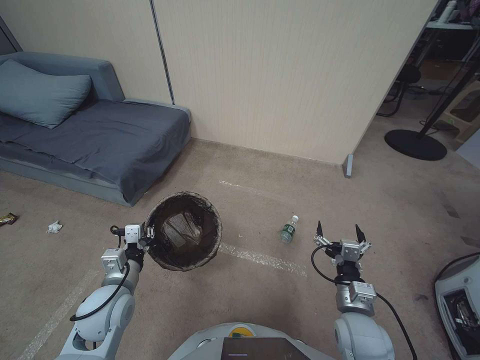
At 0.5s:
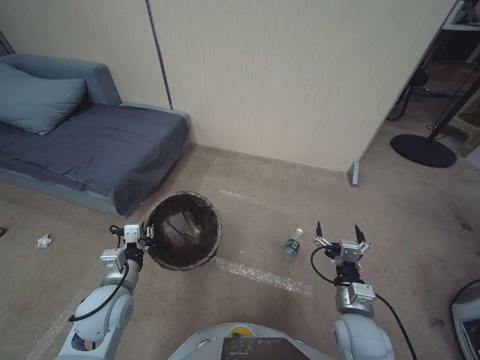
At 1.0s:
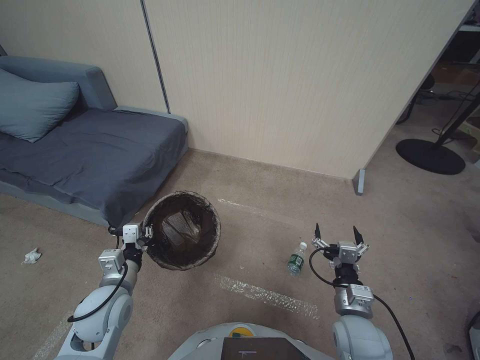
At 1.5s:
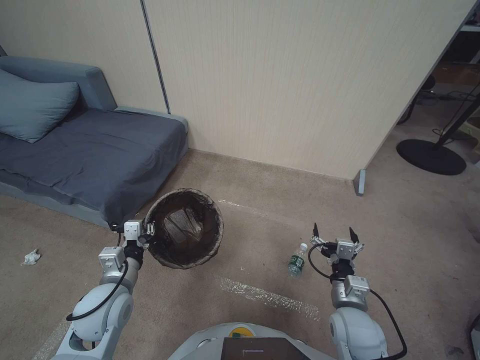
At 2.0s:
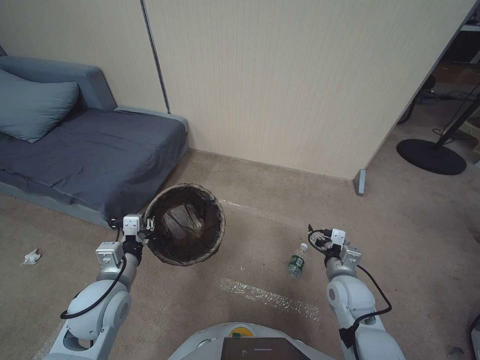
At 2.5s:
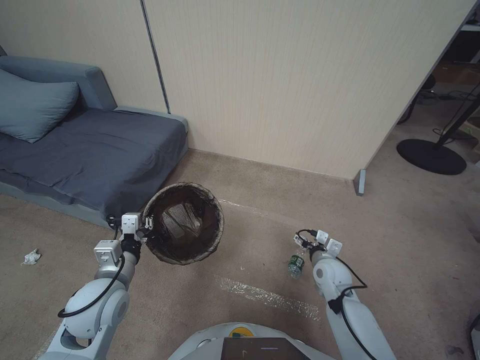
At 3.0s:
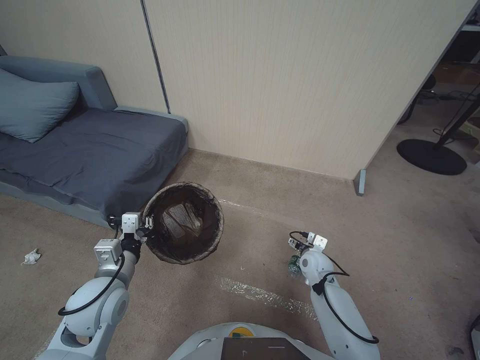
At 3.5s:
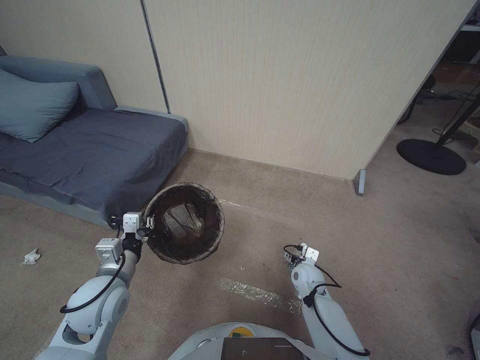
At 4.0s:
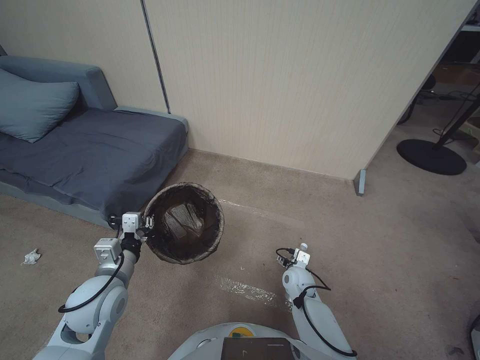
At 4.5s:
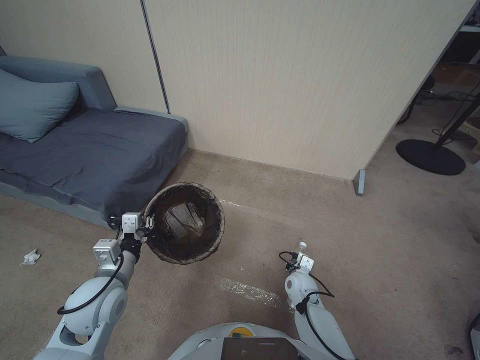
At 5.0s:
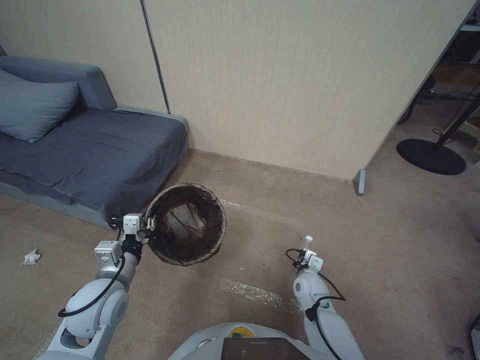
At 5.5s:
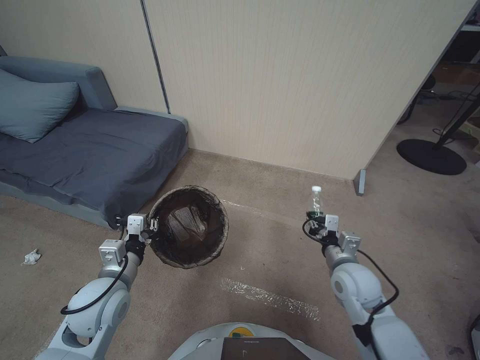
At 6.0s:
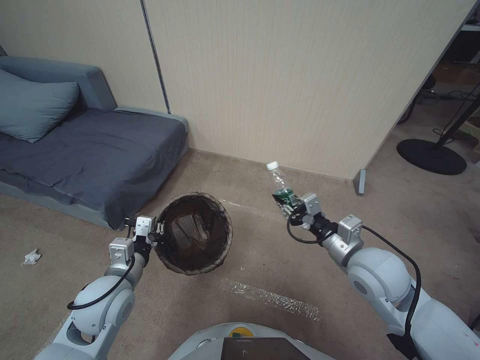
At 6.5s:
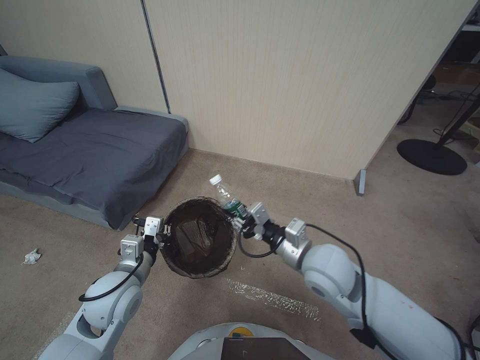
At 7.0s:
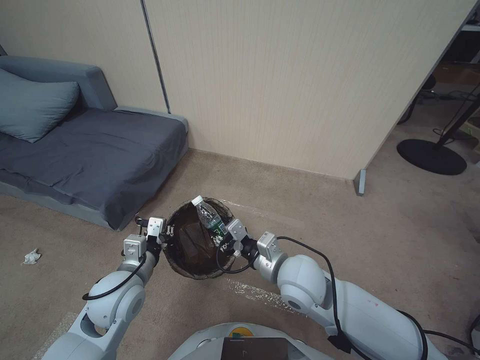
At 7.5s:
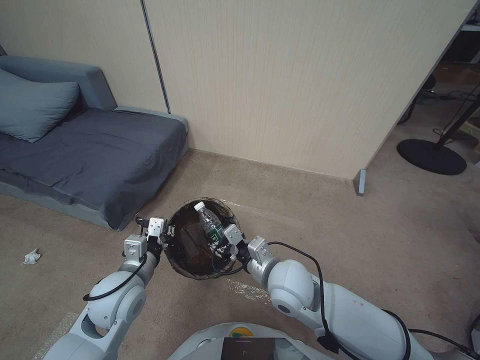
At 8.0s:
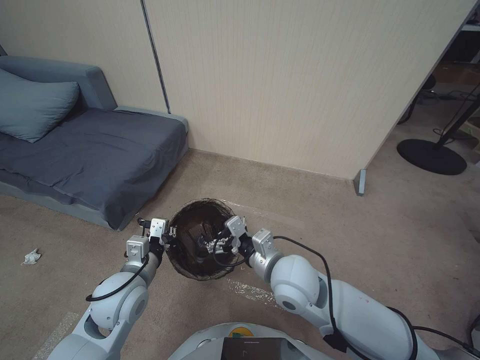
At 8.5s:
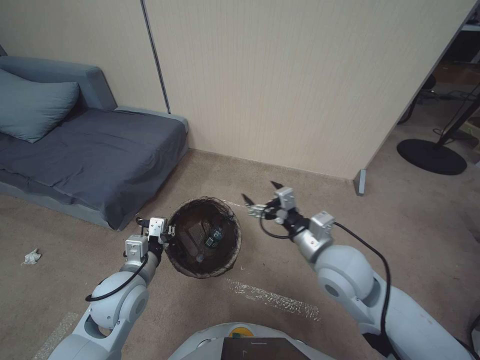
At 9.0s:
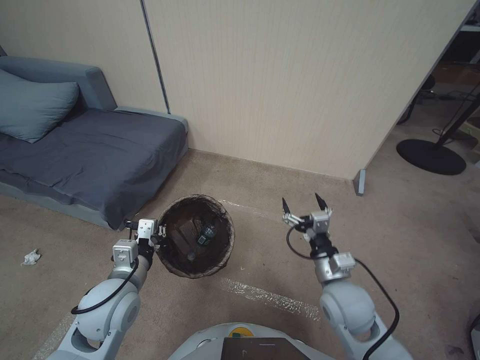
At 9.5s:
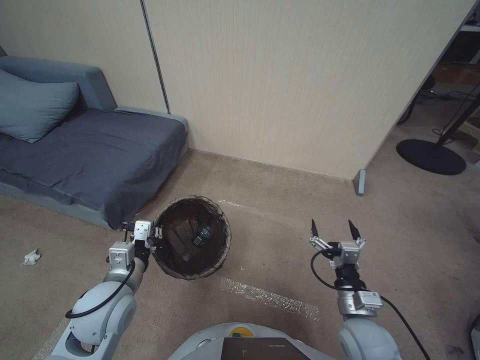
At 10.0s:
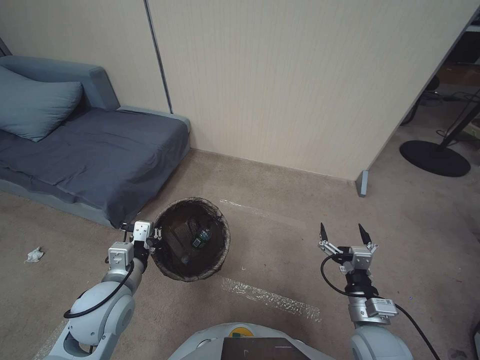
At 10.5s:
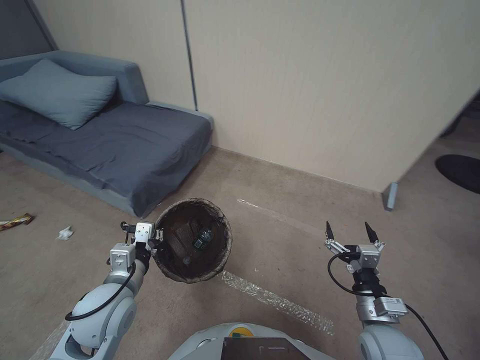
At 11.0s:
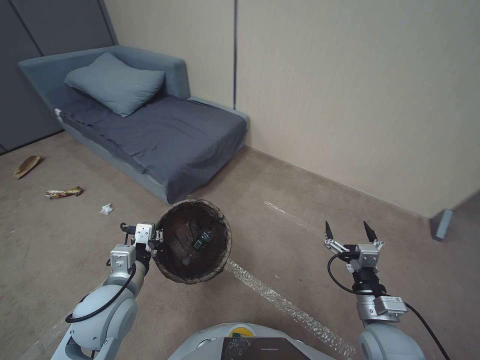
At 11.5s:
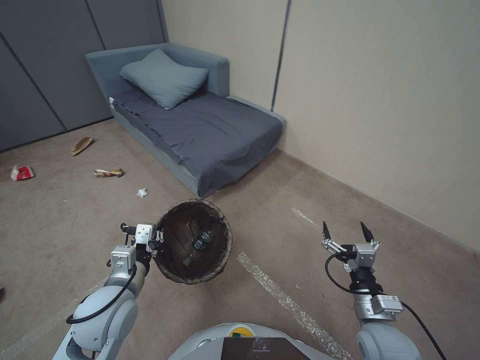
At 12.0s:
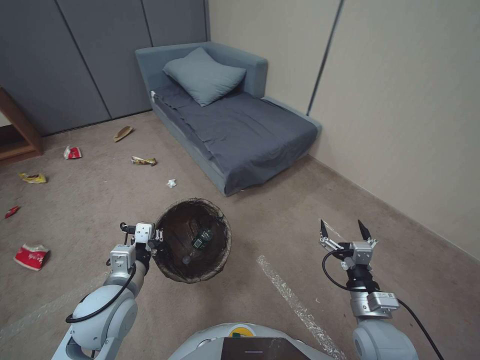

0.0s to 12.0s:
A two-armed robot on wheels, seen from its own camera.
Task of the whole recording: Pick up the trash bin, then pick up the garbage from the floor and place it into the trash bin.
0.0s to 2.0s: The right gripper shifts about 5 cm forward.
2.0s to 4.0s: The right gripper travels downward, forward and to the left by some 15 cm.
4.0s to 6.0s: The right gripper moves upward, some 30 cm, and closes its fingers.
6.0s to 8.0s: The right gripper is displaced to the left by approximately 15 cm, and opens its fingers.
8.0s to 10.0s: The right gripper goes about 25 cm to the right, backward and downward.

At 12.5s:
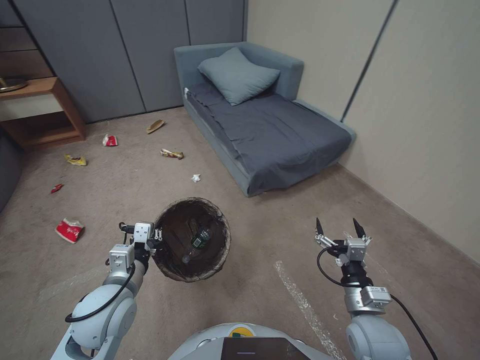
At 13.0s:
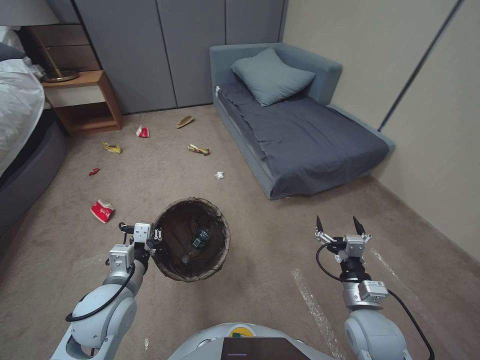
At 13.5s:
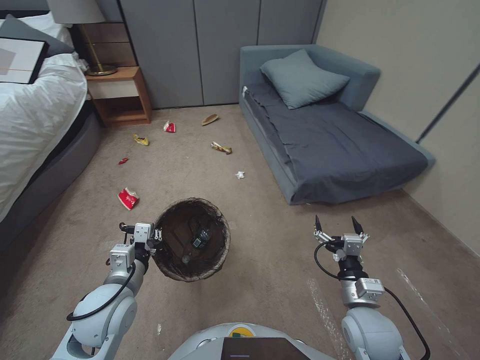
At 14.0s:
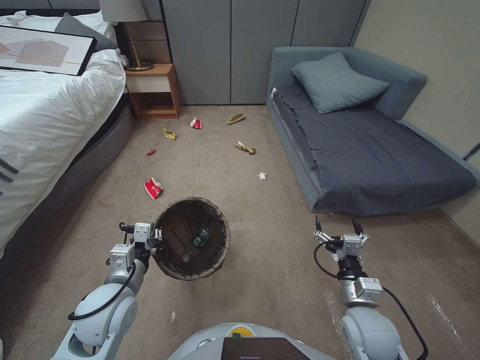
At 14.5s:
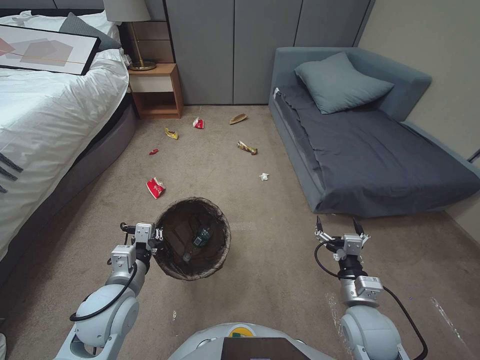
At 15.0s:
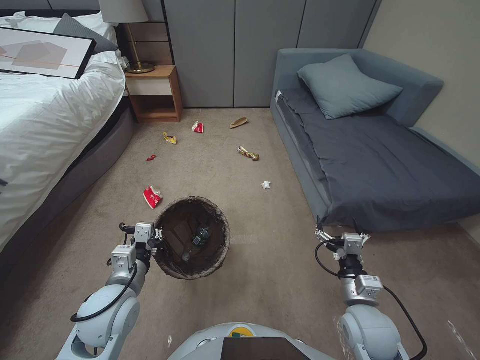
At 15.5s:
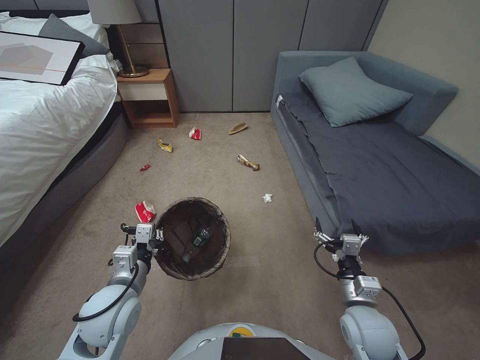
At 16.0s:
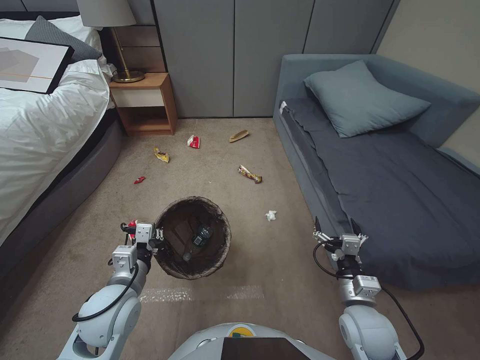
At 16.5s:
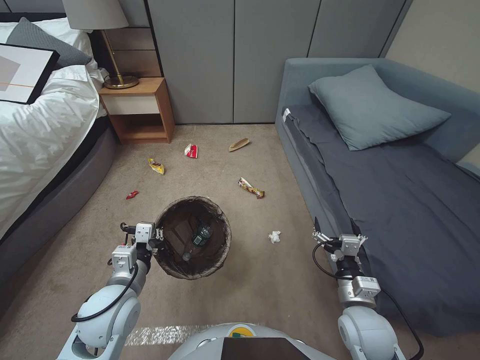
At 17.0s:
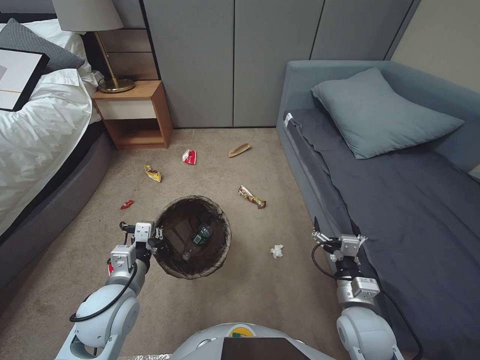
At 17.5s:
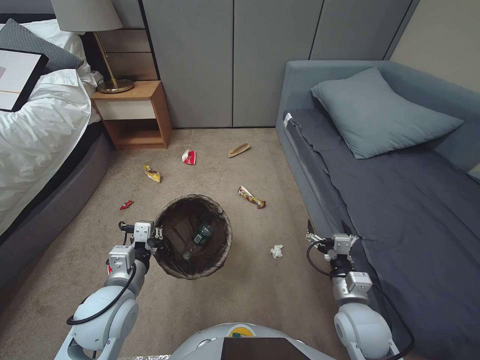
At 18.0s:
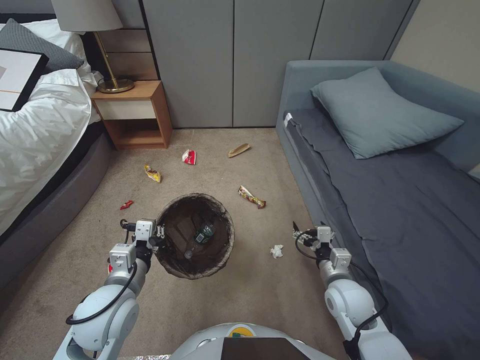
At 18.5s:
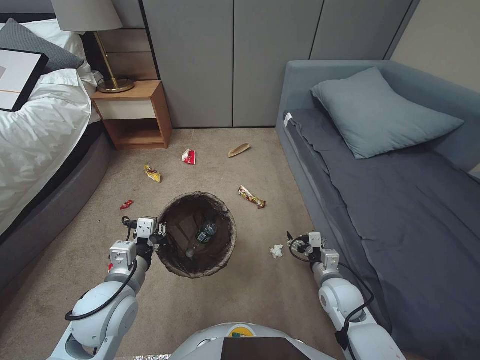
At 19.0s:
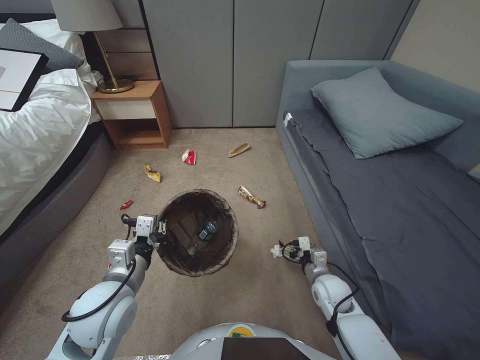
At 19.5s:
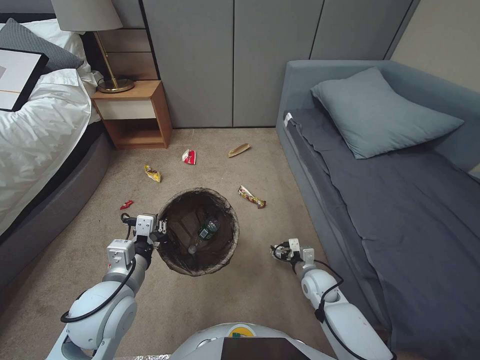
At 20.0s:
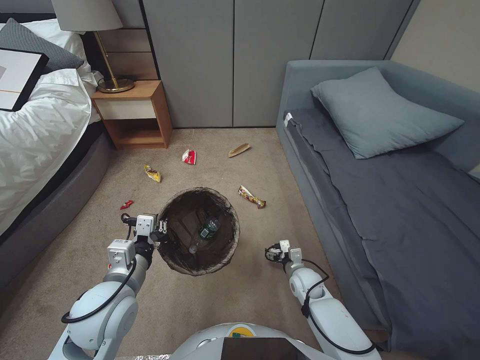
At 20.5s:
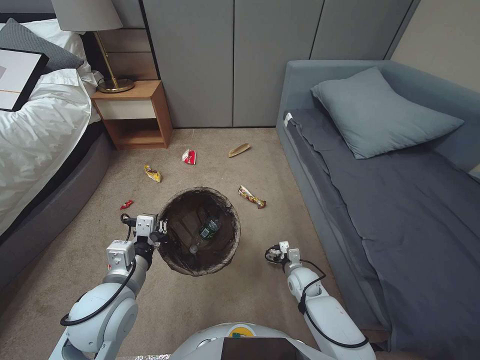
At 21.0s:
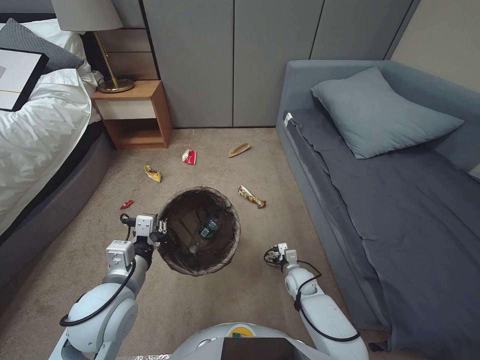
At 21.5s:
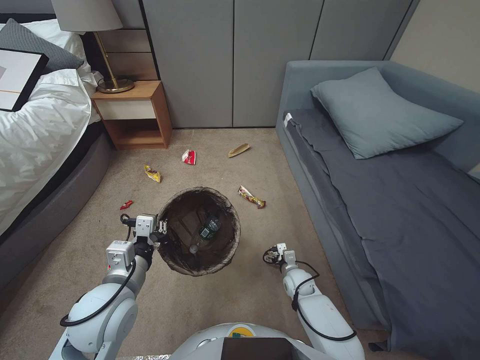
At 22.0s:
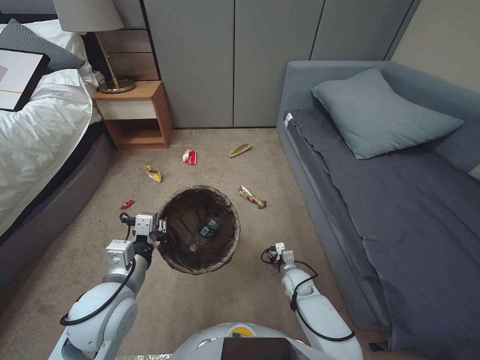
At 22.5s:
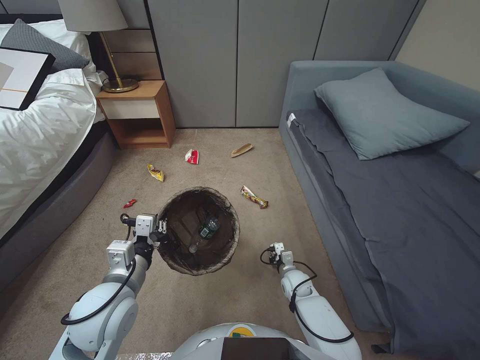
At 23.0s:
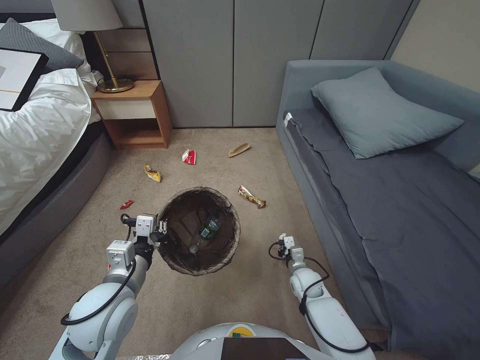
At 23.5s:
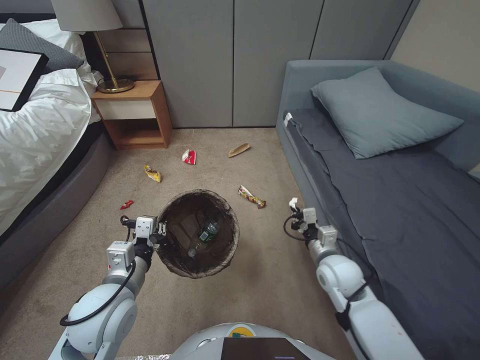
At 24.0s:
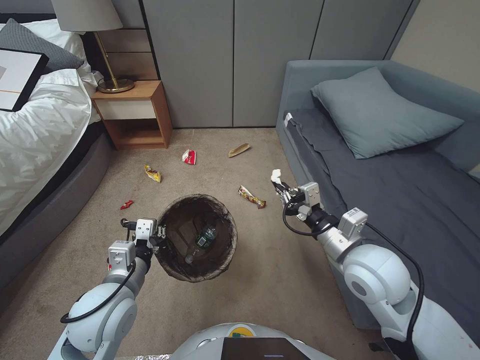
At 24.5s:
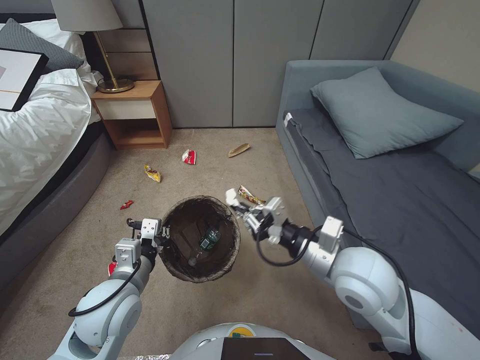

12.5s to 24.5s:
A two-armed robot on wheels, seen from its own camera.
Task of the whole recording: Pick up the trash bin, then pick up the garbage from the floor and place it into the trash bin.
16.5s to 18.5s: The right gripper travels forward and downward by approximately 10 cm.
18.5s to 20.5s: The right gripper shifts approximately 15 cm downward and forward.
20.5s to 22.5s: The right gripper closes.
22.5s to 24.5s: The right gripper travels upward by roughly 40 cm.

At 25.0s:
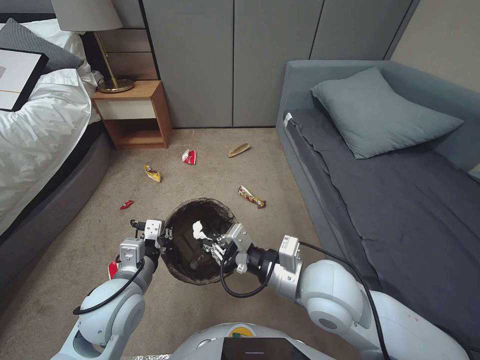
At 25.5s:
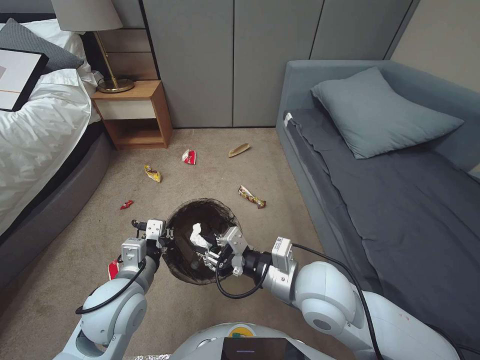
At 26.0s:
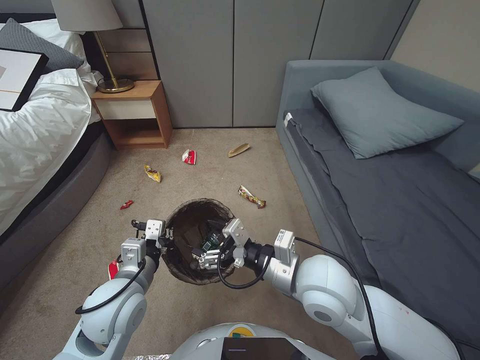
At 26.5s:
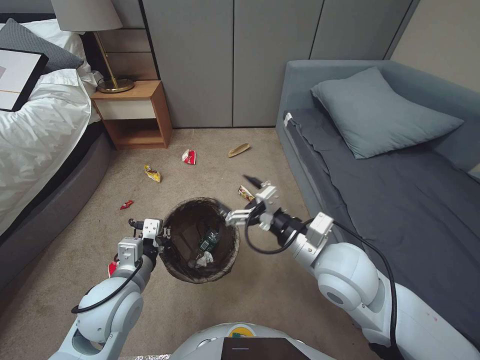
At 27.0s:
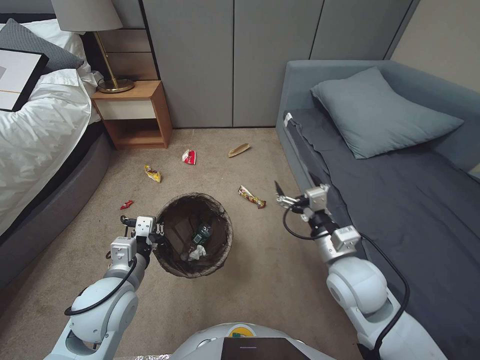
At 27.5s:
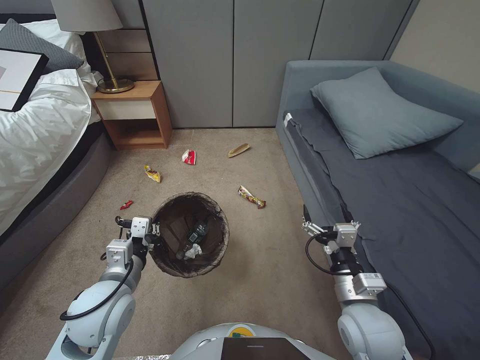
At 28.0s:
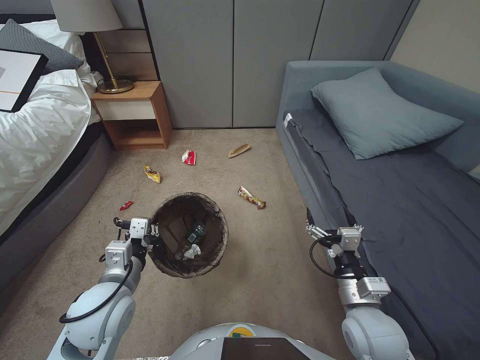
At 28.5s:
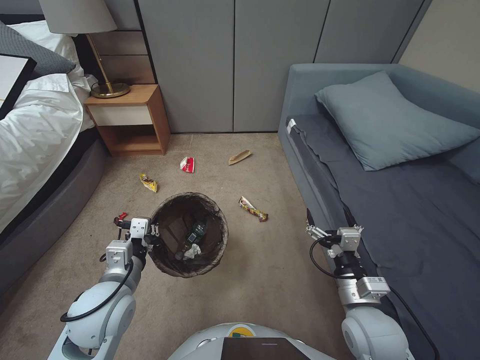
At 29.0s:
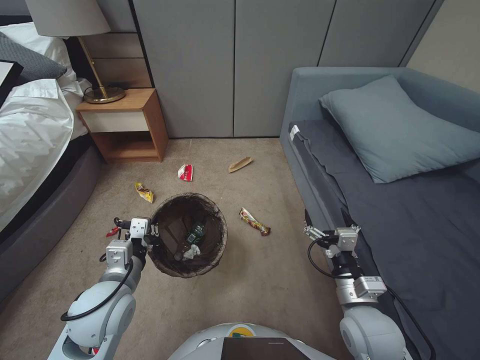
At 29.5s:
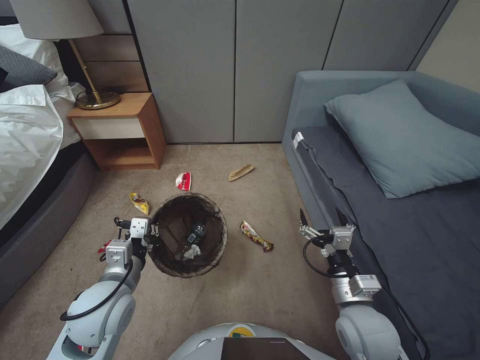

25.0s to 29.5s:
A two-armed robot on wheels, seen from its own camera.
Task of the whole recording: Pick up the trash bin, then pick up the garbage from the floor and place it into the trash bin.
25.0s to 27.0s: The right gripper moves to the right, some 5 cm, and opens its fingers.
27.0s to 29.5s: The right gripper is displaced downward and backward by some 10 cm.
